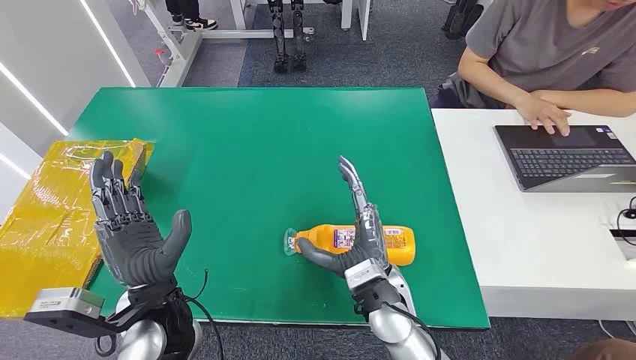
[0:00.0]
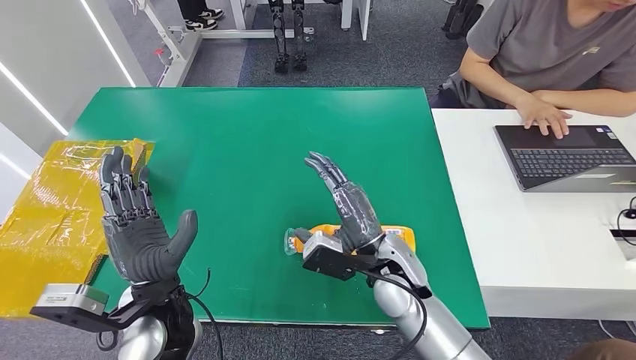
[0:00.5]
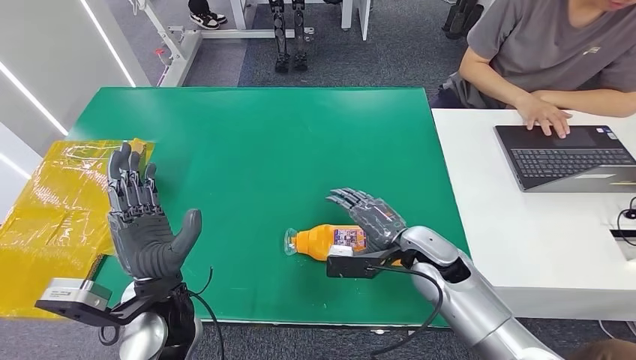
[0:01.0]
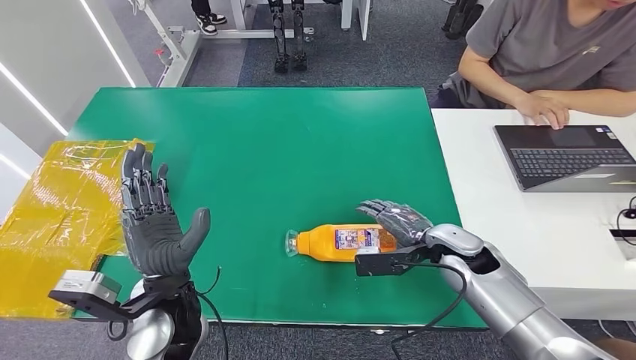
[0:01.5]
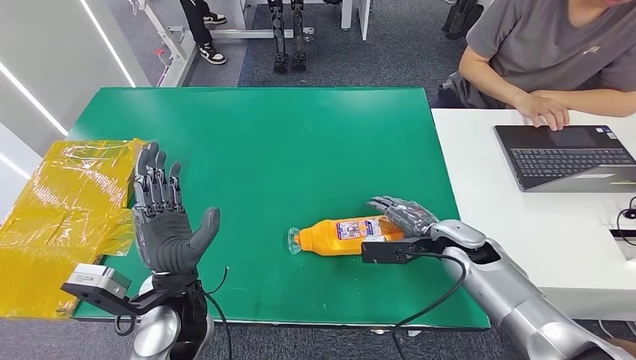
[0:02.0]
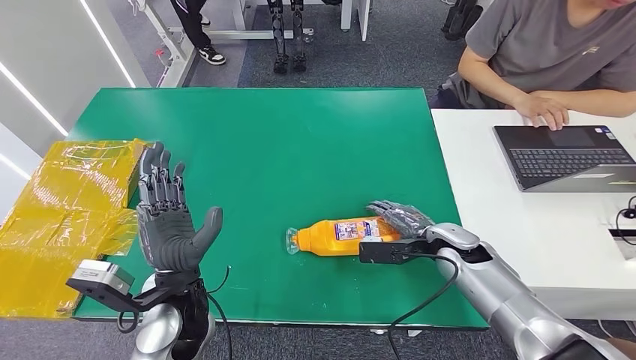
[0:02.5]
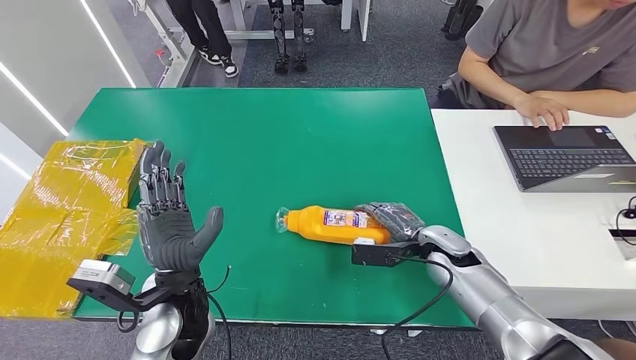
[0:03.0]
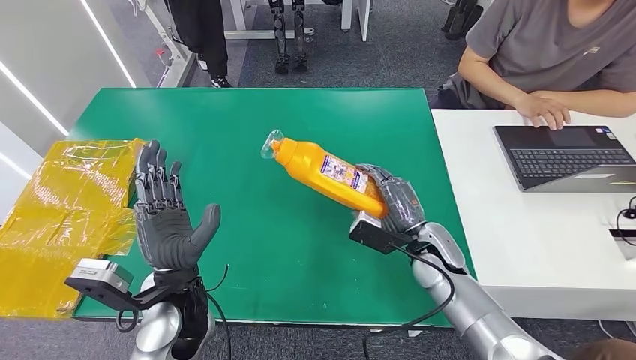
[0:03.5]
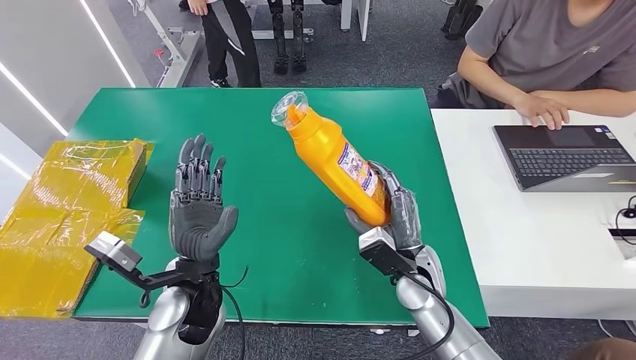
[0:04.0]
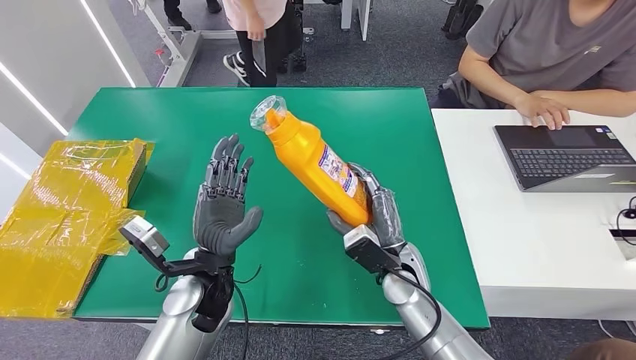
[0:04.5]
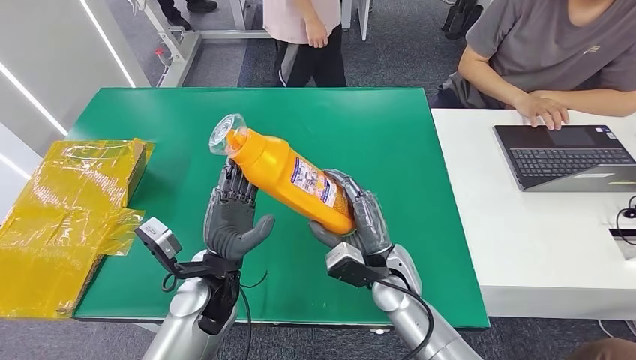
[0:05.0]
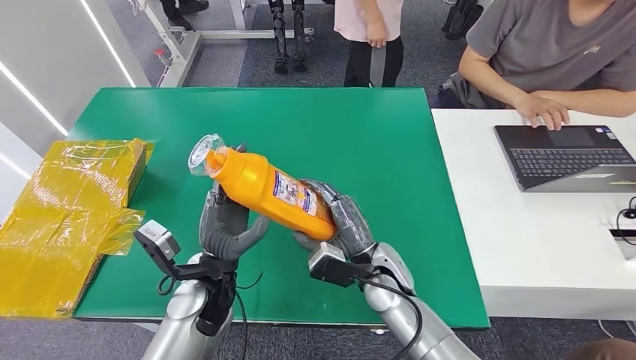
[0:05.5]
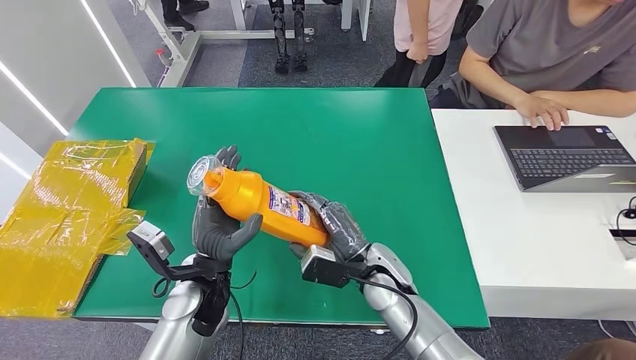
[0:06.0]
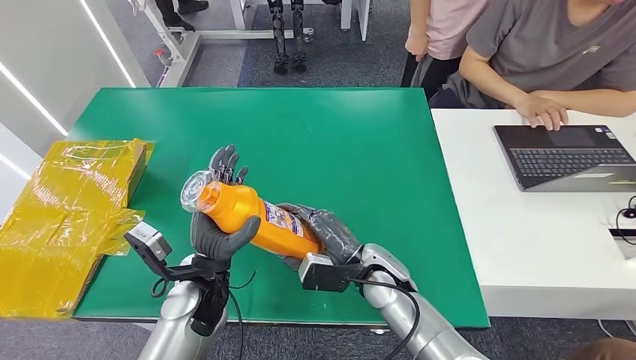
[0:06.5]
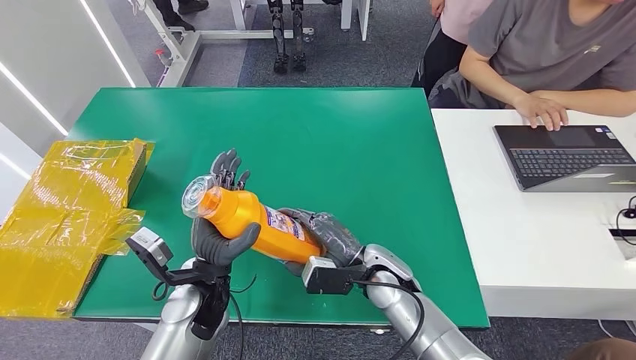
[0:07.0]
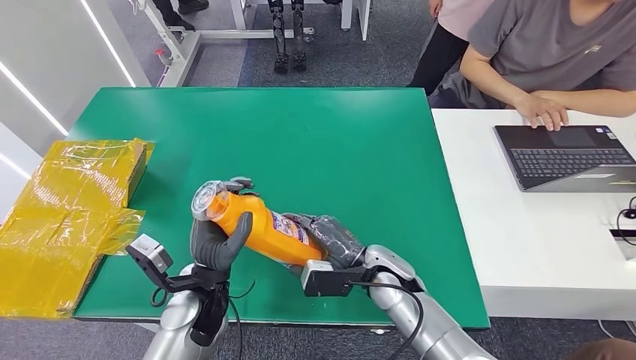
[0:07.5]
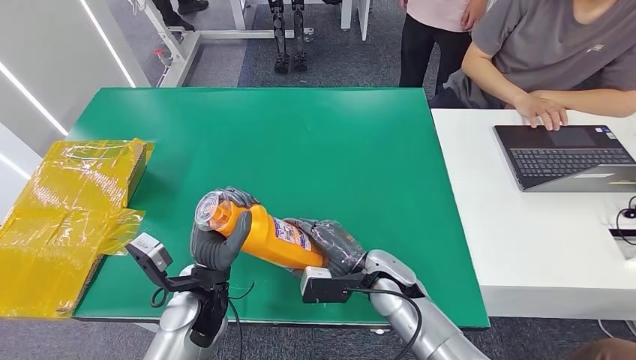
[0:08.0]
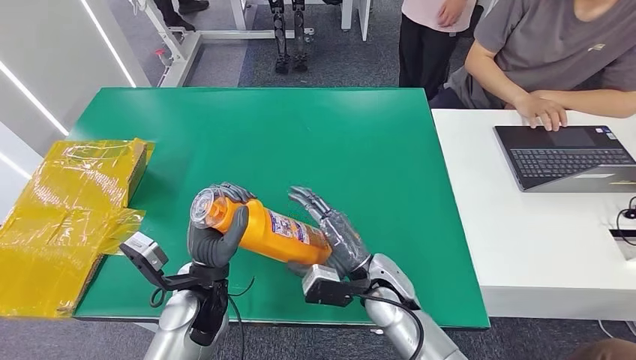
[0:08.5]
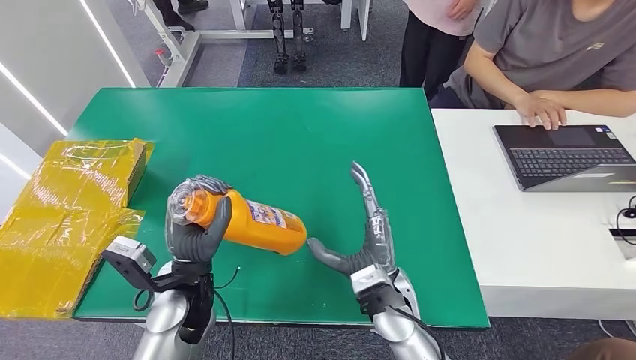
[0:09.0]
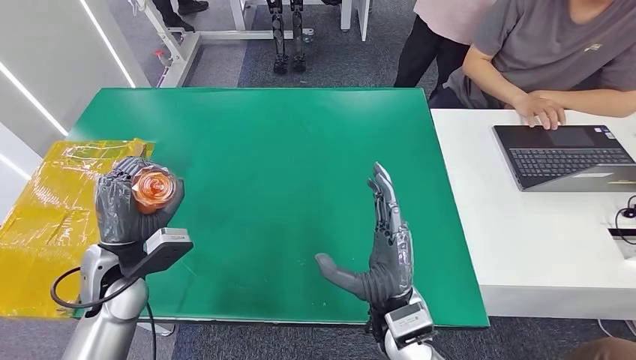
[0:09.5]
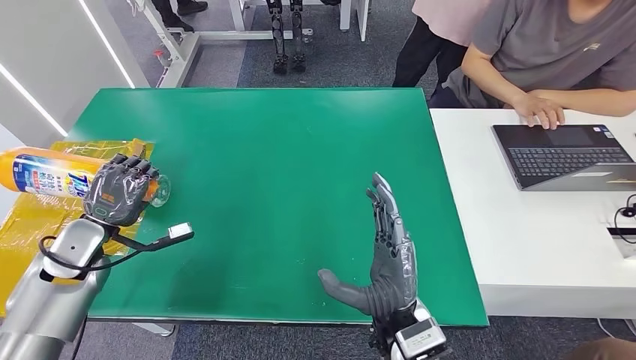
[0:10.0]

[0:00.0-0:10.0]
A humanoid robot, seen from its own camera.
Step, 0:00.0 to 0:07.5: Pick up the bottle from the table.
0:06.0 to 0:08.0: The hands stay close to where they were, moving slightly.

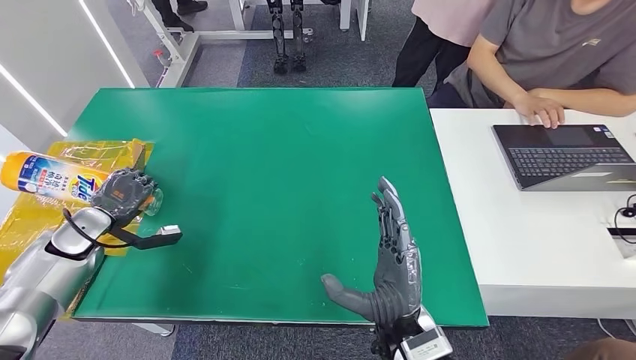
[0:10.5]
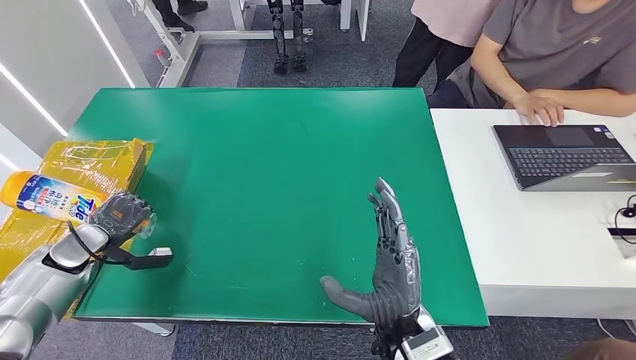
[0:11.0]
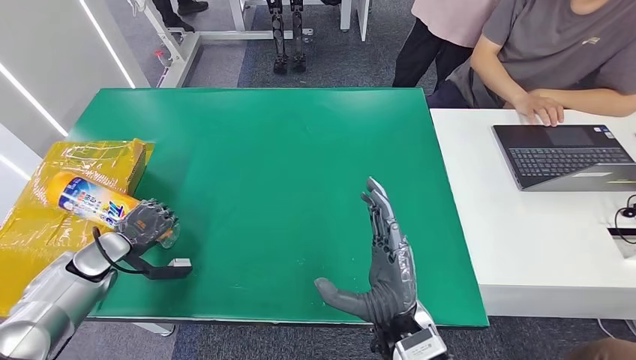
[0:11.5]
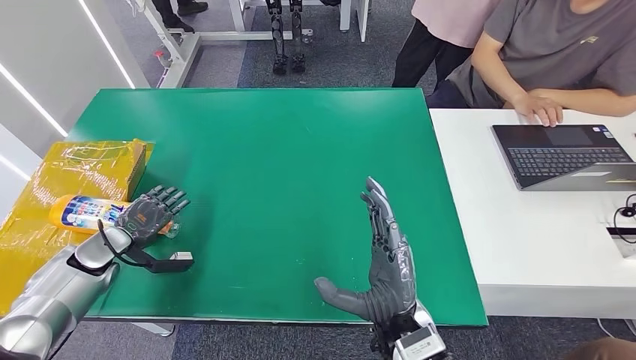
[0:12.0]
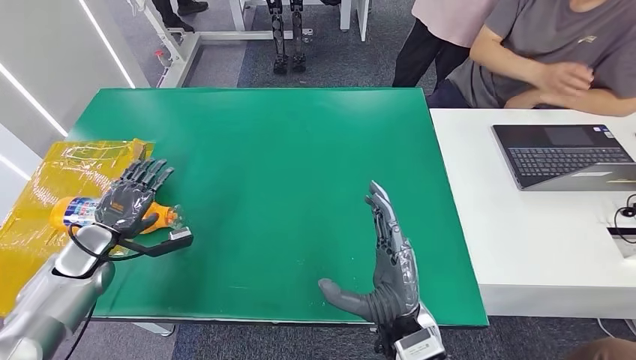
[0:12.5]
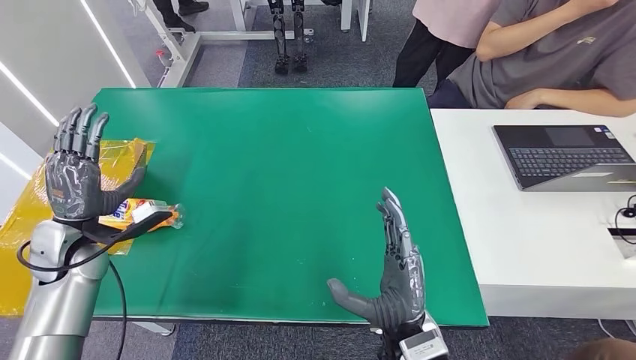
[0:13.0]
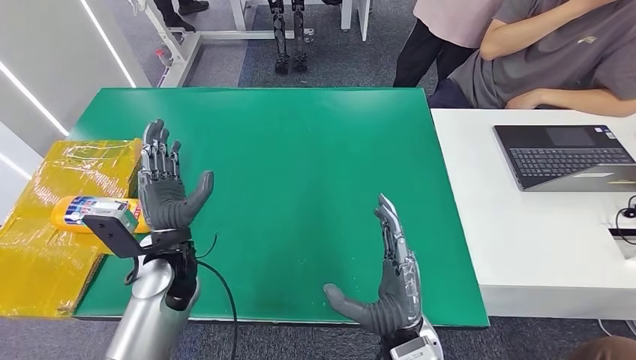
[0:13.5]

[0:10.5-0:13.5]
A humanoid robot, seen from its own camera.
Step, 0:10.5 to 0:13.5: Turn the bottle to the front side.
0:10.5 to 0:12.0: The hands make only small movements.
0:12.0 to 0:13.5: The left hand goes roughly 20 cm to the right.

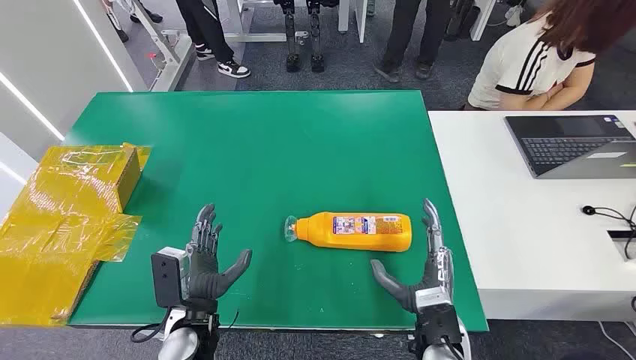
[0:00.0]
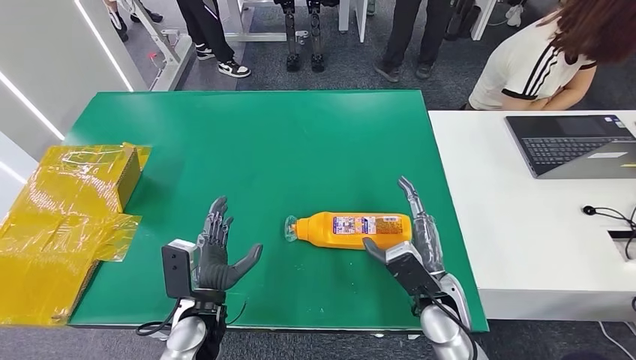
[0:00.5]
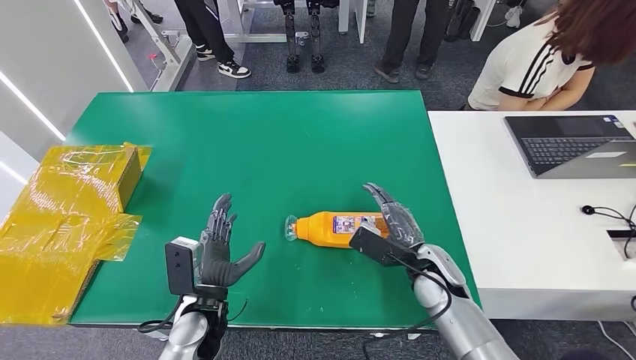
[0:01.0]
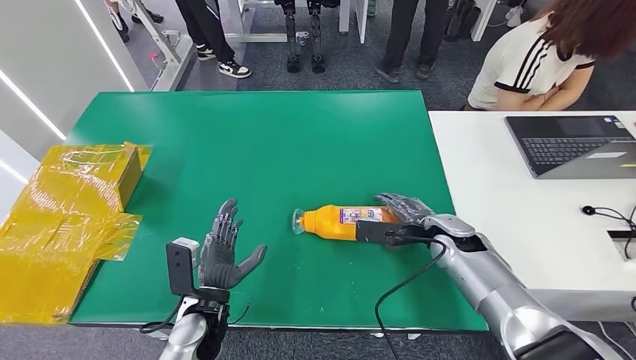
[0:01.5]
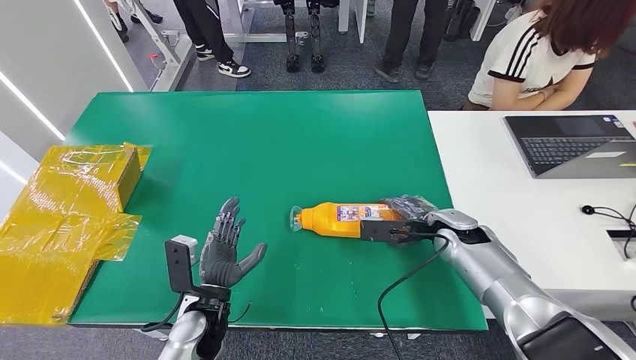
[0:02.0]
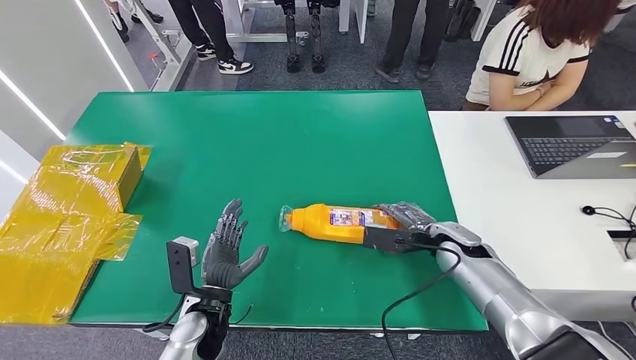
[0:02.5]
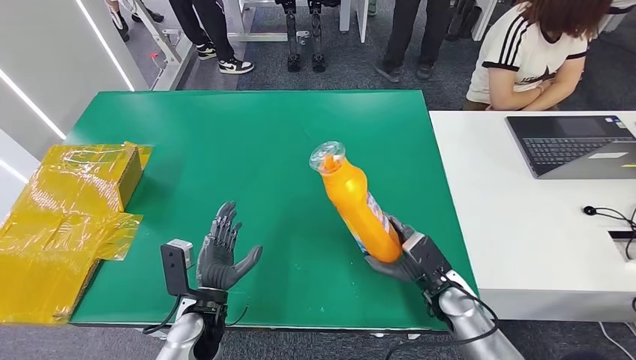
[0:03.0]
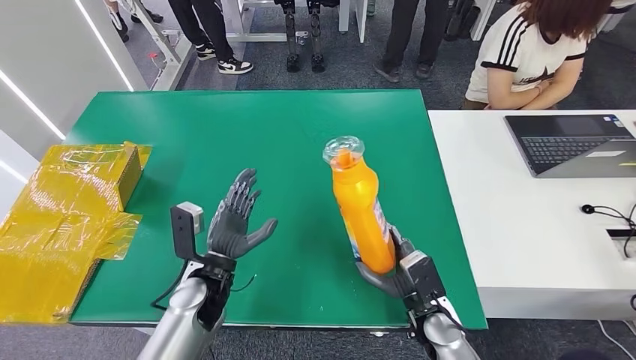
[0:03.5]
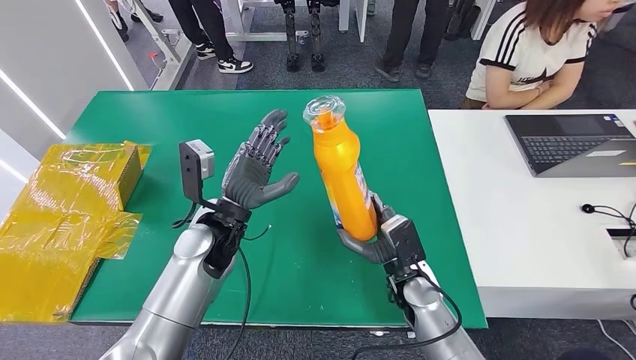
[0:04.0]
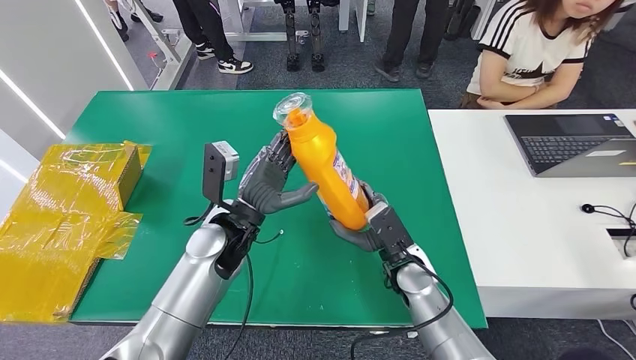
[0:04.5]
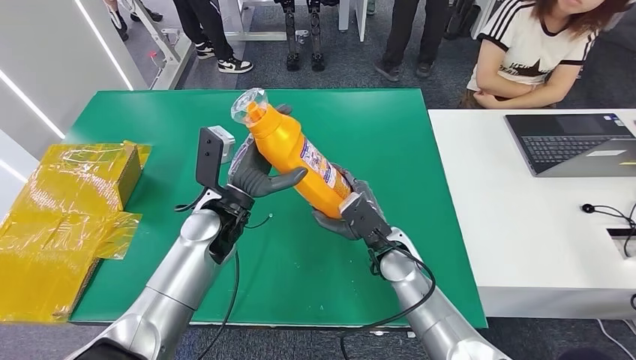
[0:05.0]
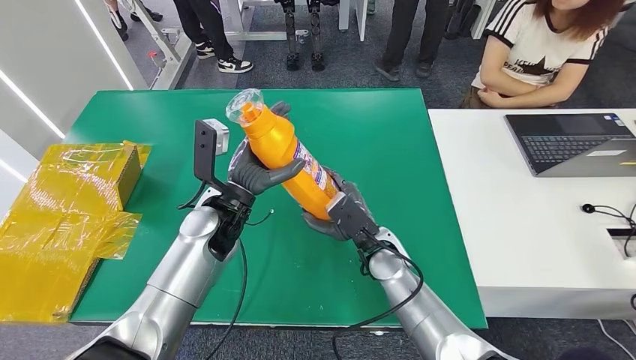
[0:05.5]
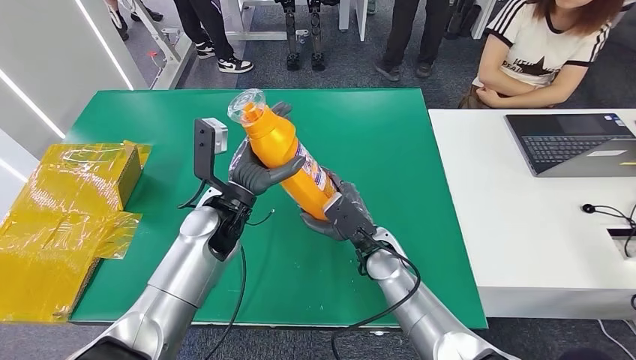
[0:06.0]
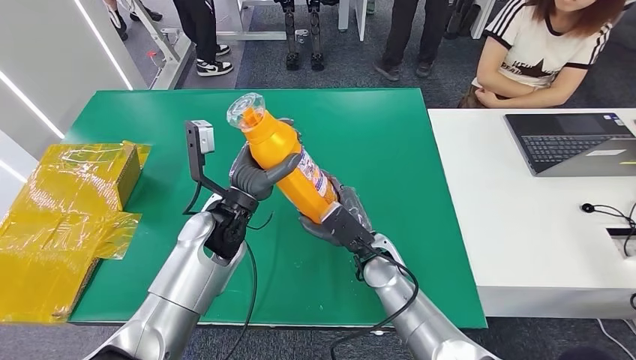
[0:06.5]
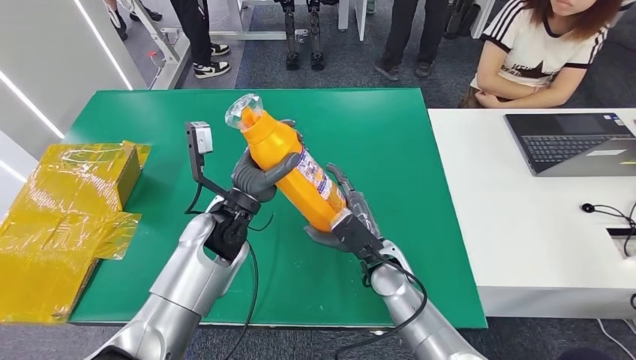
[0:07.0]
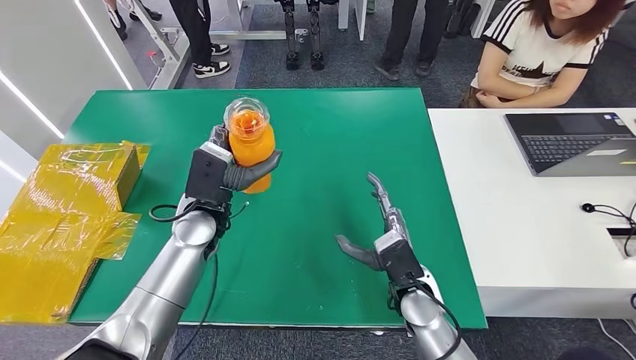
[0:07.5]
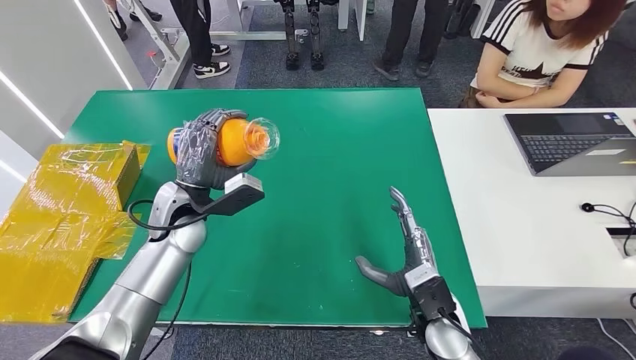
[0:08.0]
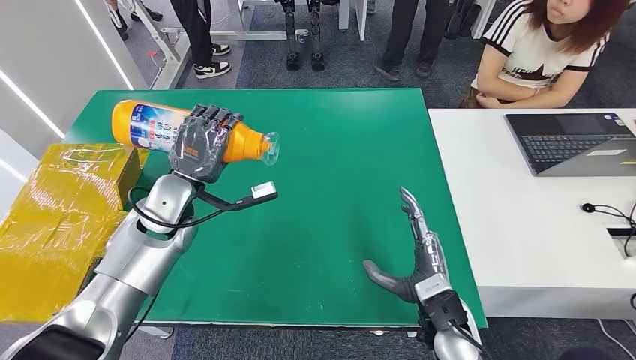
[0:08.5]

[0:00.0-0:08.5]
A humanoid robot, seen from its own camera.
Step, 0:00.0 to 0:03.0: Pick up the bottle from the table.
0:04.0 to 0:06.5: The right hand shifts approximately 5 cm to the left.
